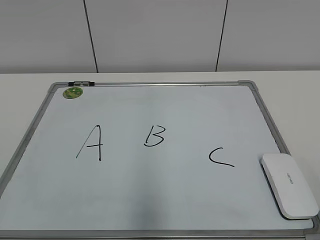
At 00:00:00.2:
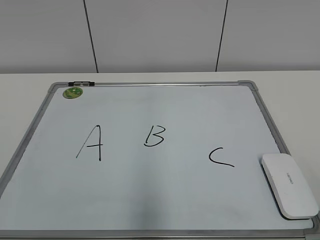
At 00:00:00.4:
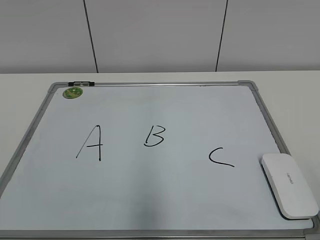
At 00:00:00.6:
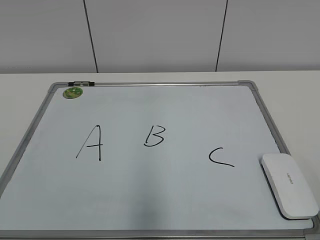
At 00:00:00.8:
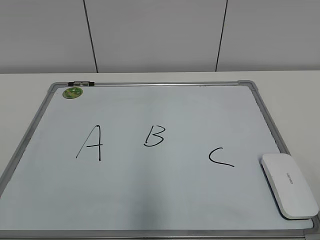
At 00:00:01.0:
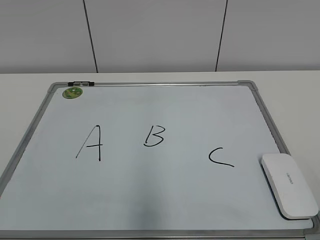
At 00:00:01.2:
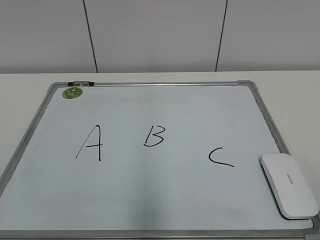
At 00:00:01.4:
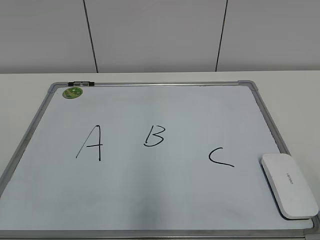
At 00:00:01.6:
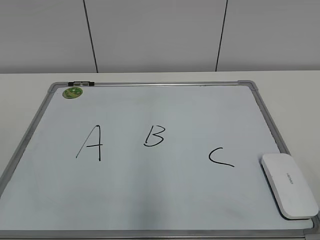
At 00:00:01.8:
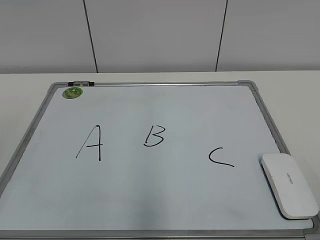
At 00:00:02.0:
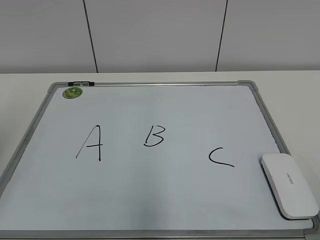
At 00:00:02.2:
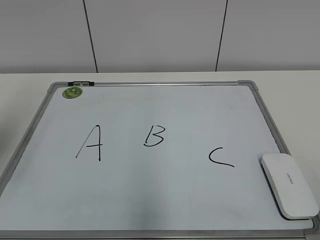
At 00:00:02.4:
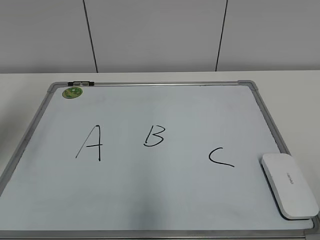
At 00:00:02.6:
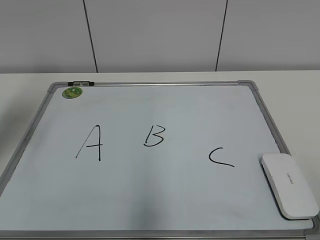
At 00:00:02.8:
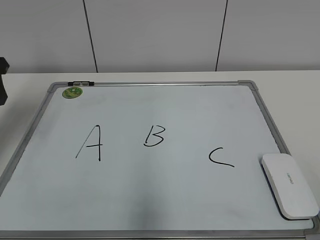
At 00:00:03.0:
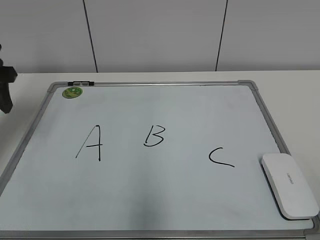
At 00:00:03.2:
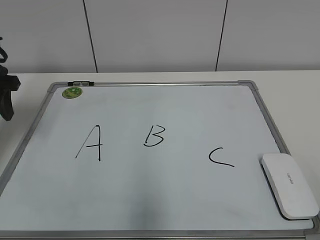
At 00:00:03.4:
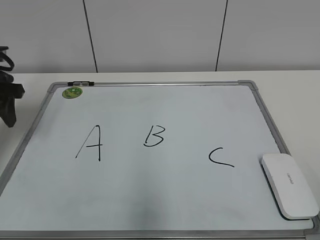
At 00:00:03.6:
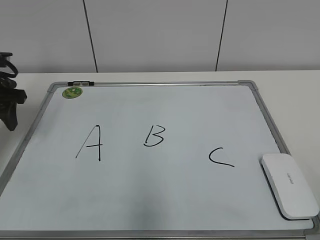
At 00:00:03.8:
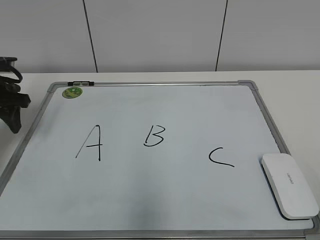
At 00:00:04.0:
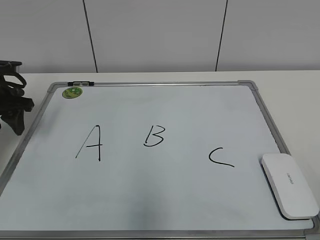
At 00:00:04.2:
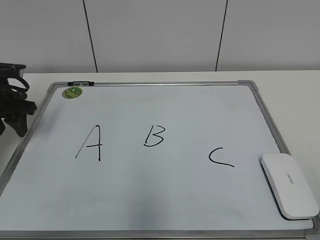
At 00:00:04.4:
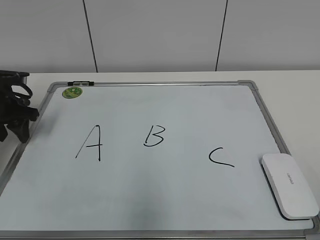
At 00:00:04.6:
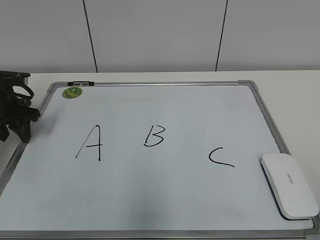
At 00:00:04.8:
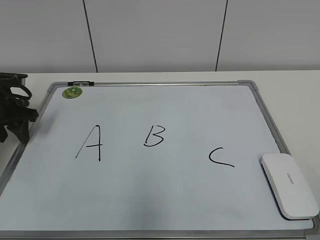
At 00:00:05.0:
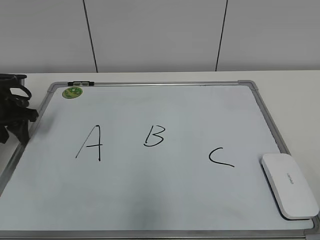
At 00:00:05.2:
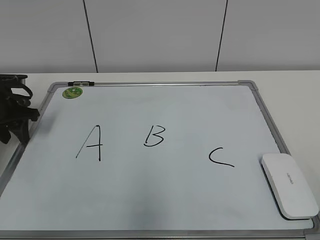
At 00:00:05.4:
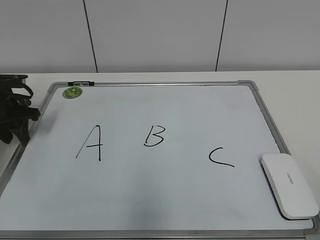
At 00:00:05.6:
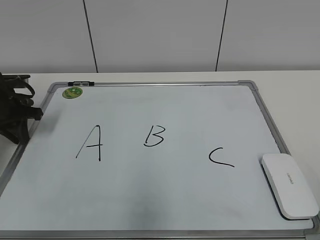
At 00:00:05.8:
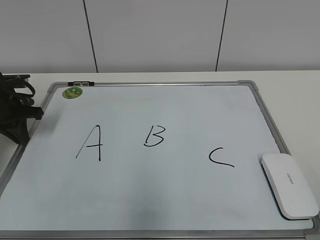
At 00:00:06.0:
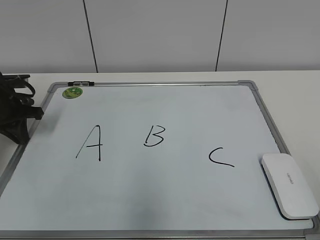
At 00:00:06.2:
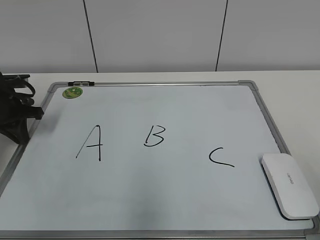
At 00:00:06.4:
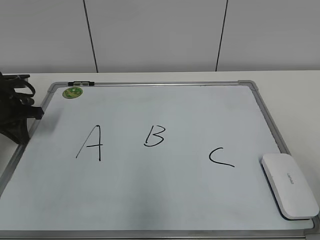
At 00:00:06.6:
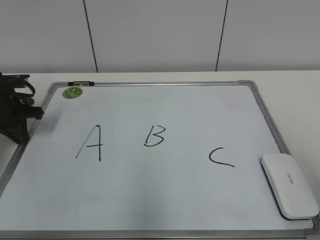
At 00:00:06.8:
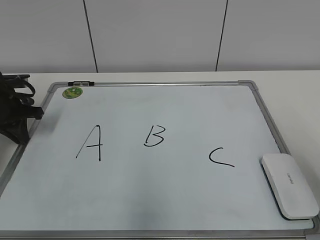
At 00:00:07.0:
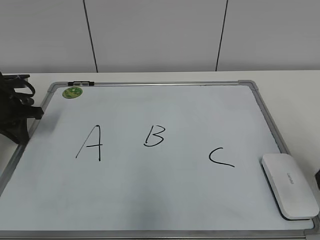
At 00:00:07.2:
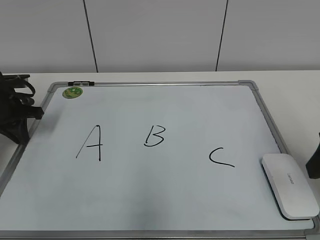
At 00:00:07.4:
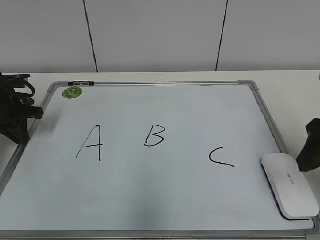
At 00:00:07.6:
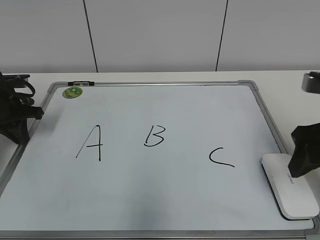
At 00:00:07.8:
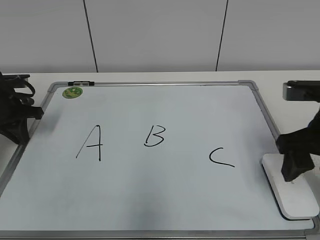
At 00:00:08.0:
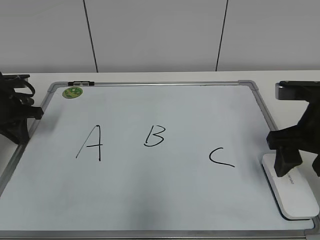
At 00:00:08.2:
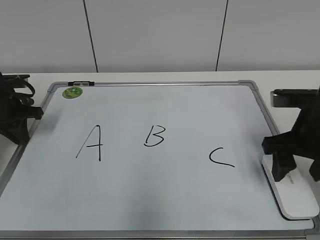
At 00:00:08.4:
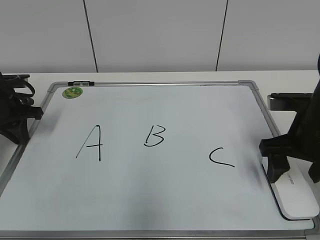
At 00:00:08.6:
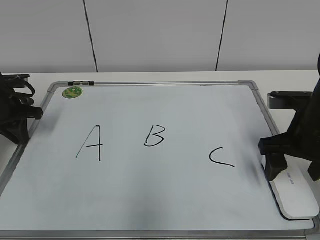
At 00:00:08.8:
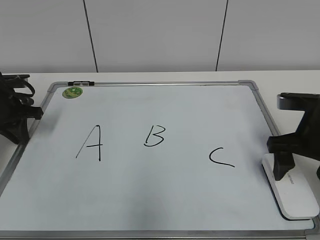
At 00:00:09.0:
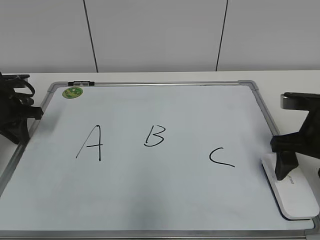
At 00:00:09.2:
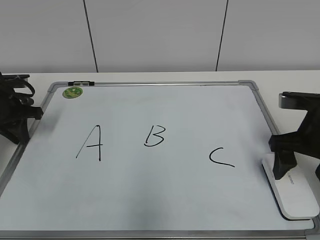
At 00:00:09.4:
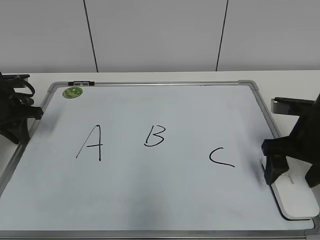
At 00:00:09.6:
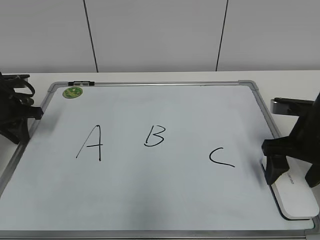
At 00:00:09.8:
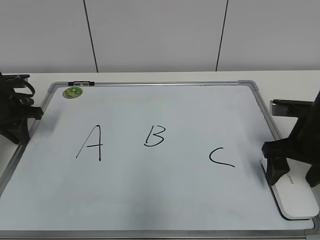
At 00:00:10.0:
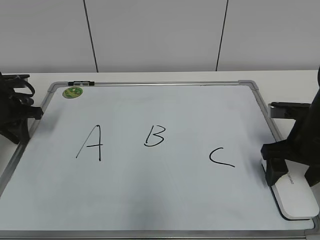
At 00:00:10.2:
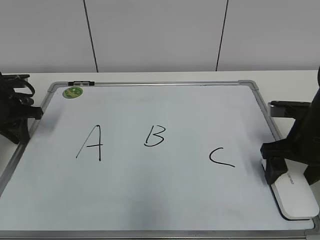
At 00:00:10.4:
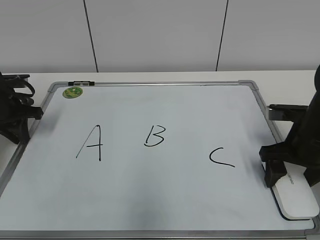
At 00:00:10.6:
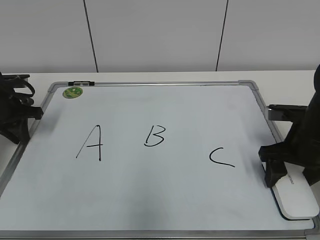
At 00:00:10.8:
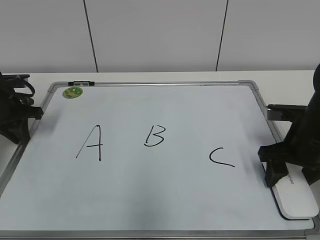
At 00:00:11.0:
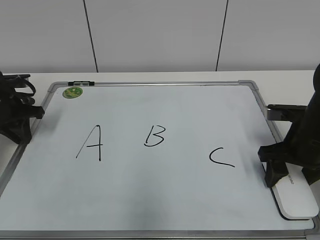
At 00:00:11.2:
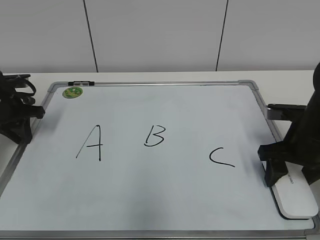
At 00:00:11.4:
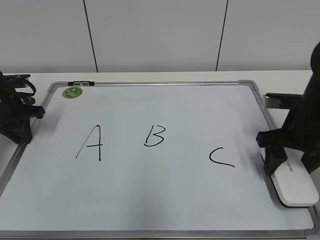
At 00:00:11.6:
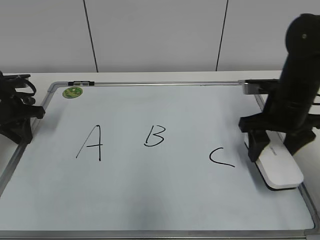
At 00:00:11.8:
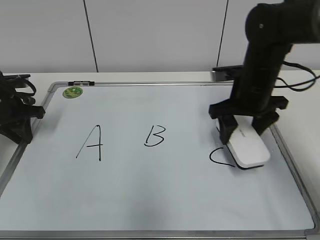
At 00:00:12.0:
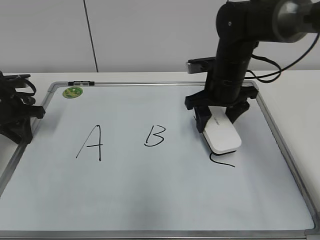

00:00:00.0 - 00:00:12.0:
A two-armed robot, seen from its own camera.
Task of the whole recording: pick up the eraser on the blackboard and erase the letter "B".
Step, 00:00:00.0 - 00:00:06.2: Hold the drawing board steady with your left hand.
Step, 00:00:06.4 - 00:00:10.2: Grab the eraser with your right hand.
00:00:01.6 - 00:00:03.0: The left gripper goes roughly 30 cm forward.
00:00:03.0 - 00:00:04.4: The left gripper is displaced downward by roughly 10 cm.
00:00:04.4 - 00:00:06.0: The left gripper closes up.
00:00:06.0 - 00:00:07.6: The right gripper moves forward, roughly 25 cm.
00:00:07.6 - 00:00:09.0: The right gripper is displaced downward and forward by approximately 10 cm, and opens.
00:00:09.0 - 00:00:10.4: The grippers move only a little.
00:00:10.4 - 00:00:12.0: The right gripper travels to the left and forward by some 15 cm, and closes up.

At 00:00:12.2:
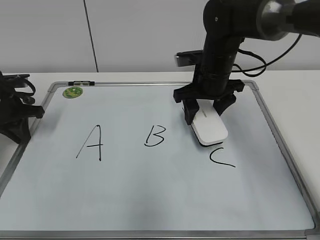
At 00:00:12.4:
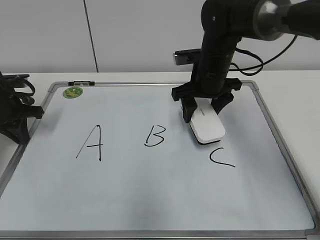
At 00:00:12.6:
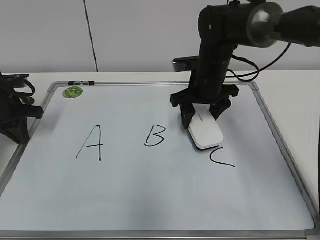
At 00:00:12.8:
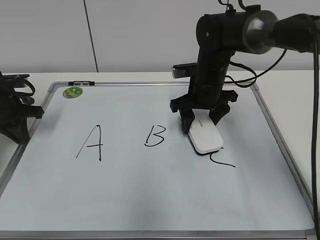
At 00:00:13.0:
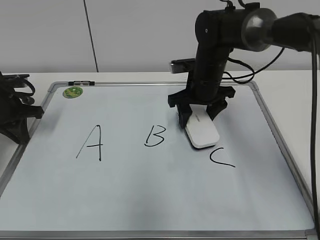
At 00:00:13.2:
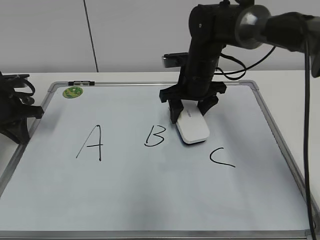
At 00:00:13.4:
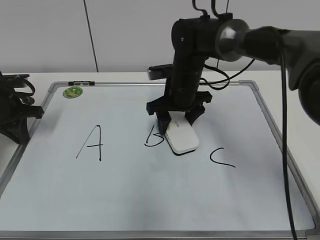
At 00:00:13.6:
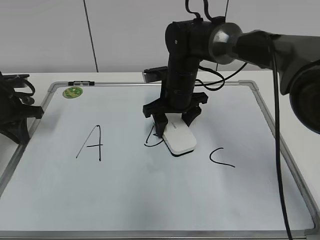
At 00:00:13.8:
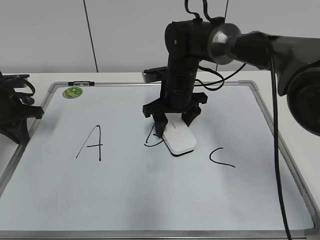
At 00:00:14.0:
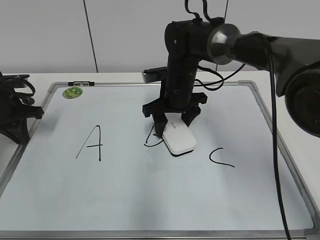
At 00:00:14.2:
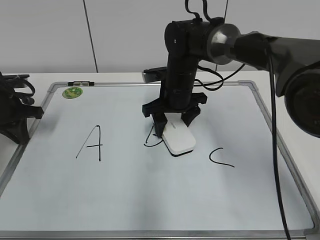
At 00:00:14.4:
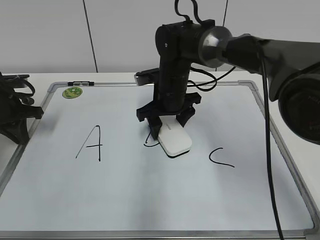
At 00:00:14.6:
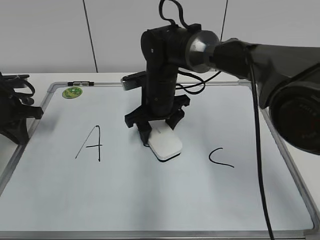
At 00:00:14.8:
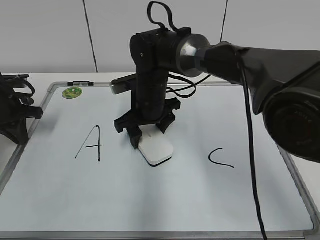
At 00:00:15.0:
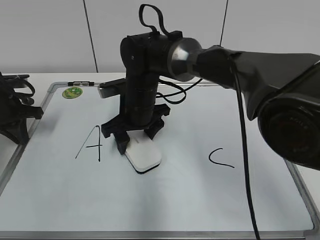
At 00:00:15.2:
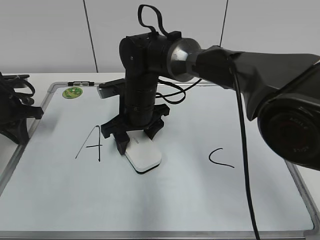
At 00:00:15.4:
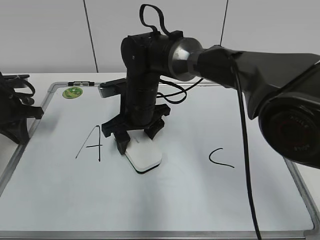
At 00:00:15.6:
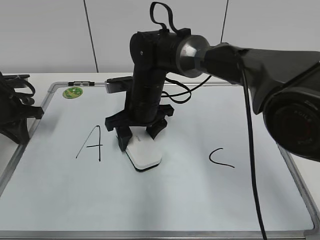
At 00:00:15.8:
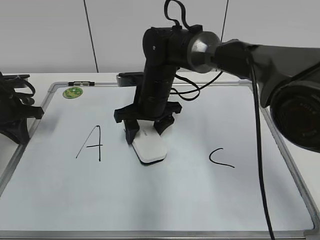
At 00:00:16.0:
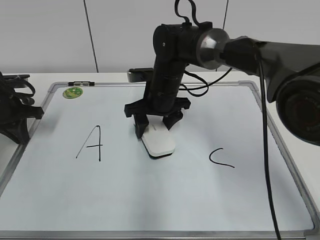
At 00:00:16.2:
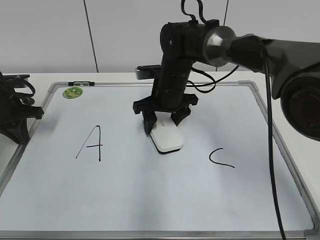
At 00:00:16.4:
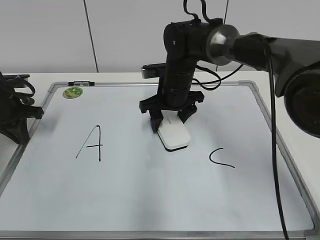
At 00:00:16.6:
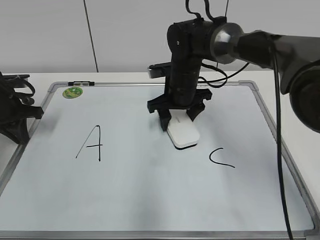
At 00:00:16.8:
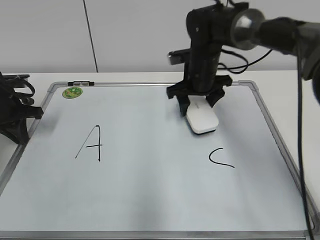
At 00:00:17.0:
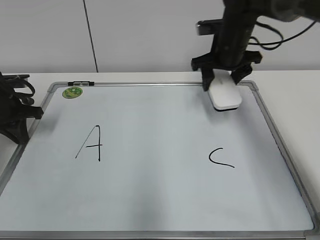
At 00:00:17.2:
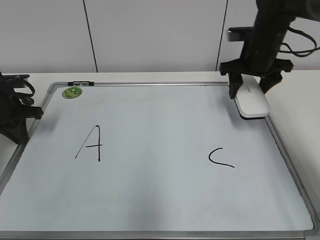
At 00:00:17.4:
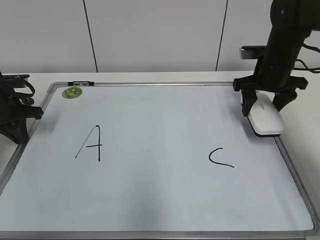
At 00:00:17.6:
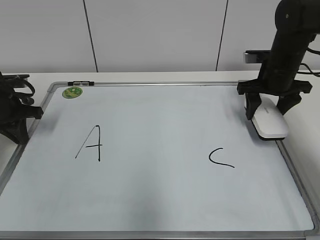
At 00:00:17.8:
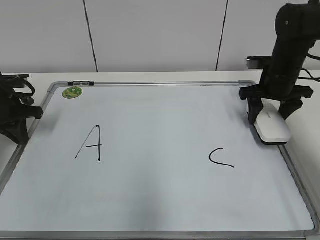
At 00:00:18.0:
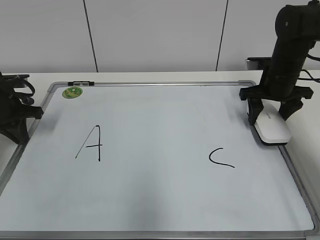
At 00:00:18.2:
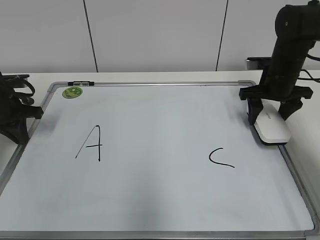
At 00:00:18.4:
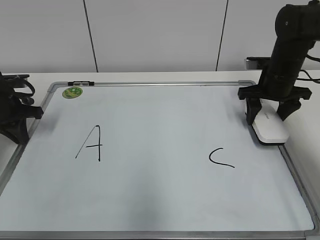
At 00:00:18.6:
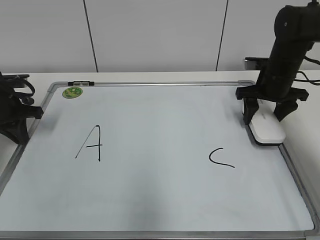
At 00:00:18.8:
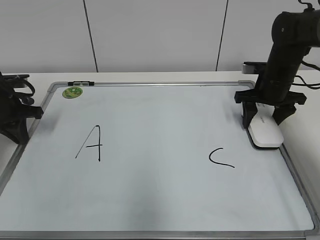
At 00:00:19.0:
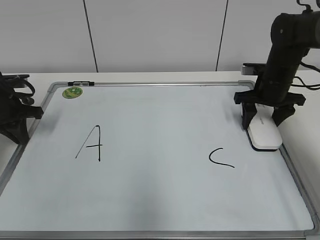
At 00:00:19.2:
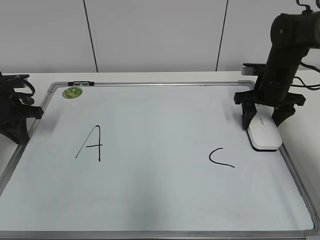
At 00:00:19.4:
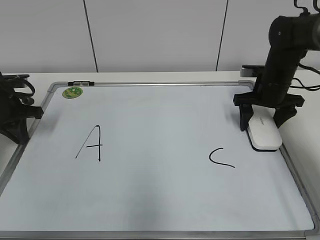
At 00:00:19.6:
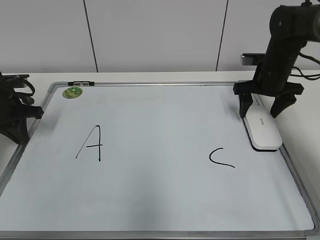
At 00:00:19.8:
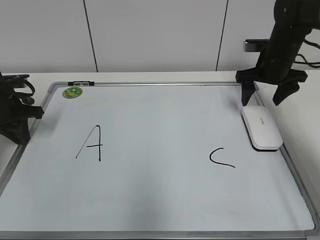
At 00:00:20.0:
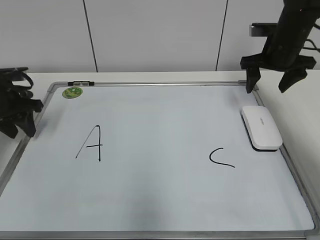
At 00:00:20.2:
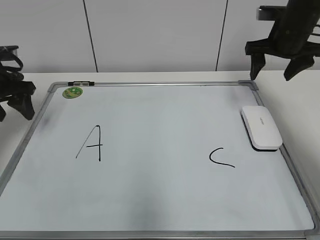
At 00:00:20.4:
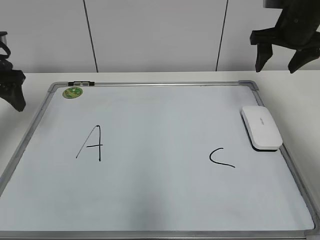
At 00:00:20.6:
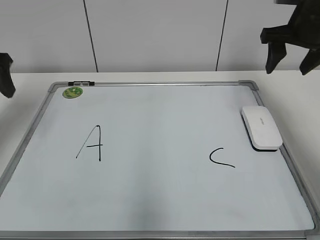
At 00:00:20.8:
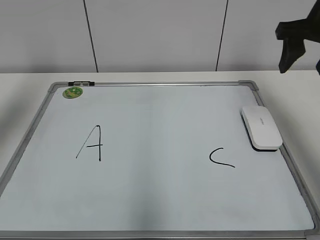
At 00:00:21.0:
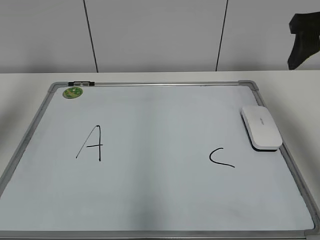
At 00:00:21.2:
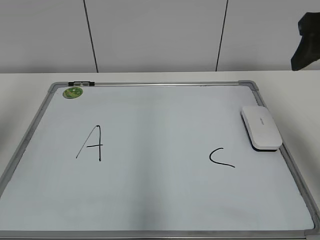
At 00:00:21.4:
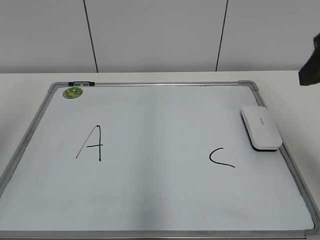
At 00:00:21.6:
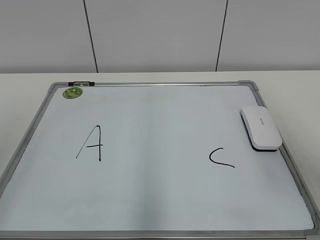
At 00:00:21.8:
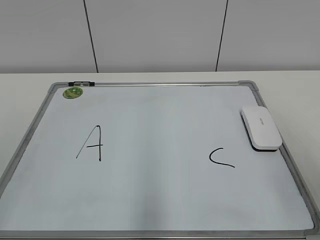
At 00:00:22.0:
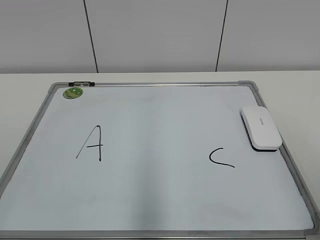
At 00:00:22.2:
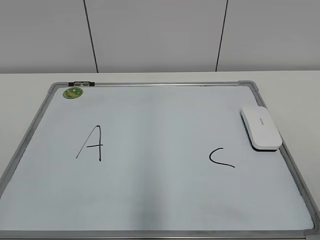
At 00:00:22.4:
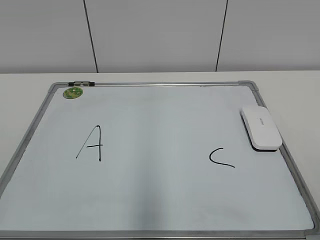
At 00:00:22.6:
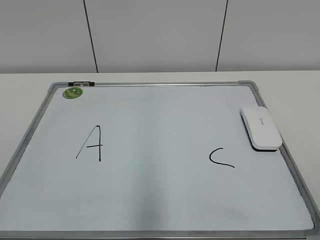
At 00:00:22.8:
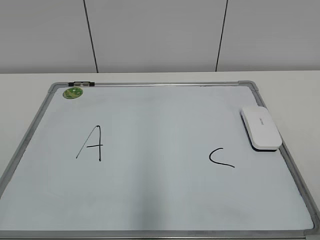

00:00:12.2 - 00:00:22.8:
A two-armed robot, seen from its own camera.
Task of the whole recording: pick up the eraser on the blackboard and erase the letter "B".
Step, 00:00:12.2 - 00:00:16.4: Erase the letter B with your right hand.
Step, 00:00:16.8 - 00:00:19.2: Put down the eraser with your right hand.
00:00:12.2 - 00:00:13.8: The right gripper shifts some 5 cm to the left.
00:00:13.8 - 00:00:15.2: The right gripper heads to the left, covering roughly 10 cm.
00:00:15.2 - 00:00:16.8: The right gripper travels to the right and forward by about 15 cm.
00:00:16.8 - 00:00:18.2: The right gripper heads to the right, covering about 15 cm.
00:00:18.2 - 00:00:19.8: The right gripper opens.
00:00:19.8 - 00:00:21.2: The right gripper shifts some 25 cm backward and upward, and closes up; the left gripper goes approximately 30 cm upward and backward, and opens up.
00:00:21.2 - 00:00:22.8: The left gripper shifts approximately 25 cm backward and downward. The right gripper heads backward, covering some 25 cm.
